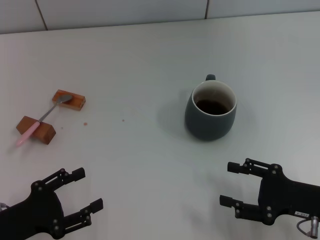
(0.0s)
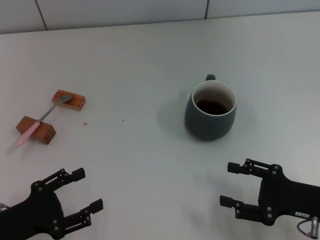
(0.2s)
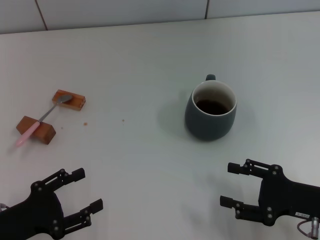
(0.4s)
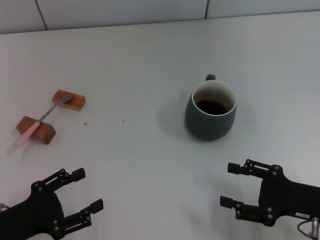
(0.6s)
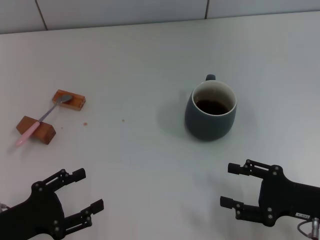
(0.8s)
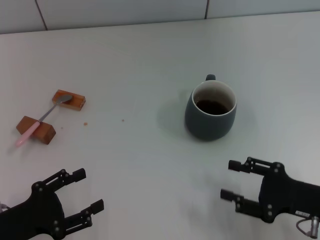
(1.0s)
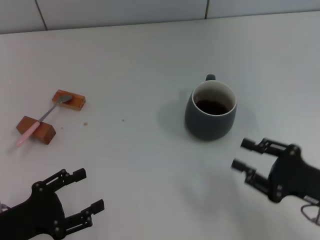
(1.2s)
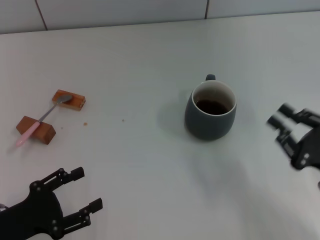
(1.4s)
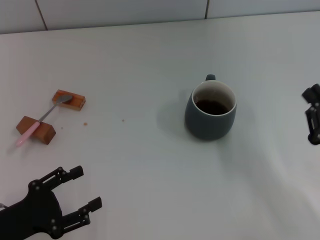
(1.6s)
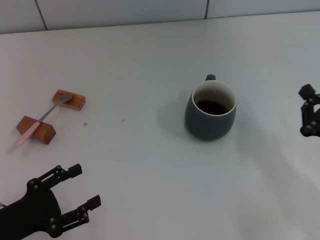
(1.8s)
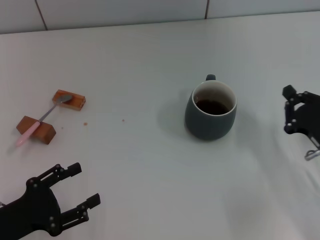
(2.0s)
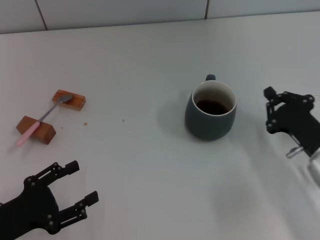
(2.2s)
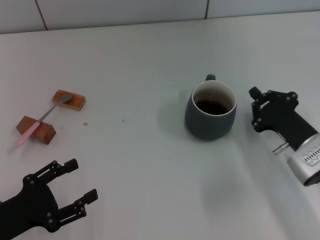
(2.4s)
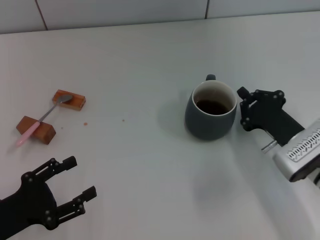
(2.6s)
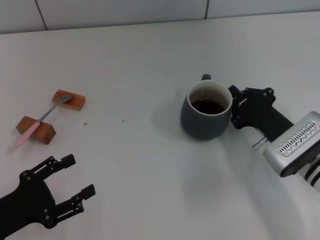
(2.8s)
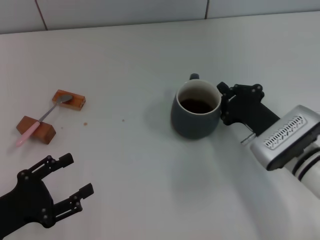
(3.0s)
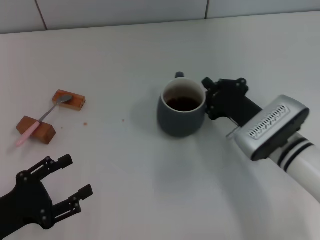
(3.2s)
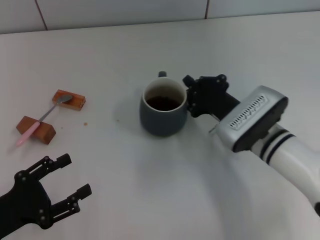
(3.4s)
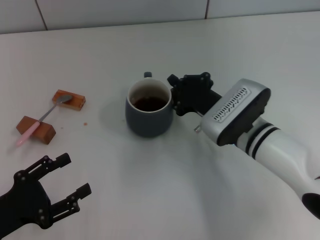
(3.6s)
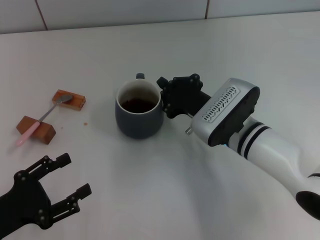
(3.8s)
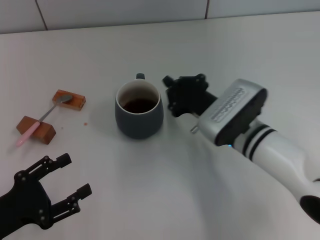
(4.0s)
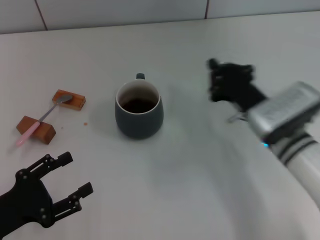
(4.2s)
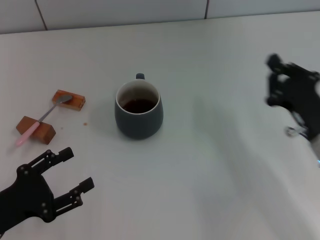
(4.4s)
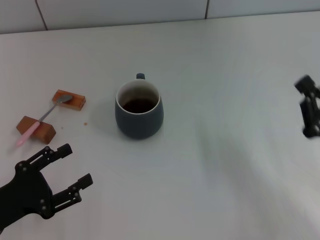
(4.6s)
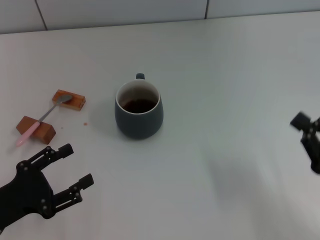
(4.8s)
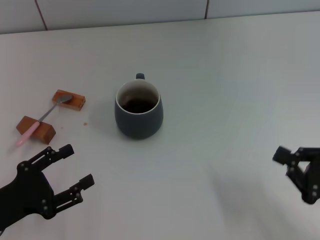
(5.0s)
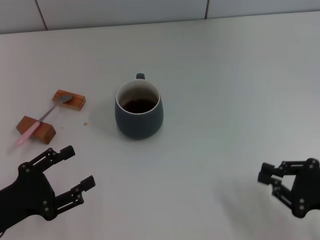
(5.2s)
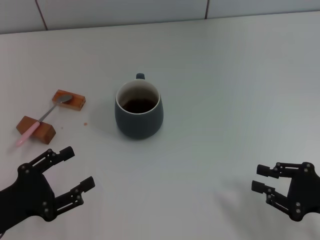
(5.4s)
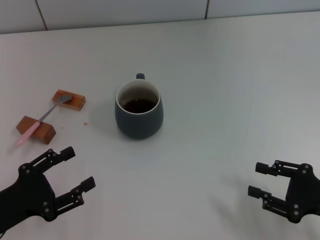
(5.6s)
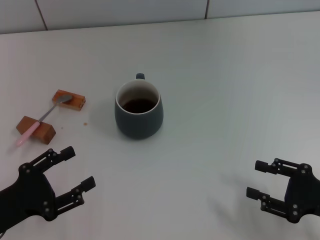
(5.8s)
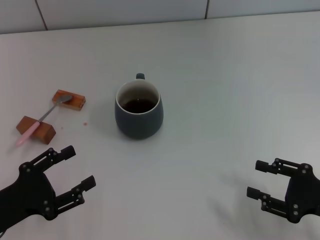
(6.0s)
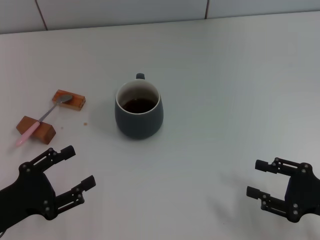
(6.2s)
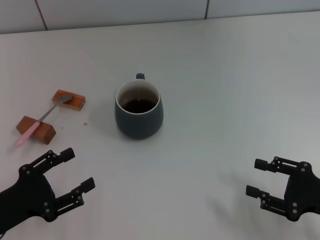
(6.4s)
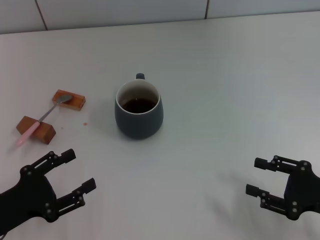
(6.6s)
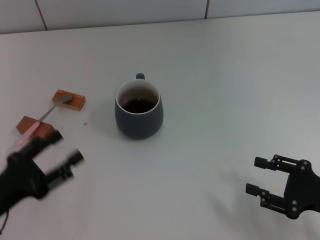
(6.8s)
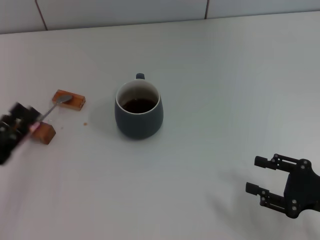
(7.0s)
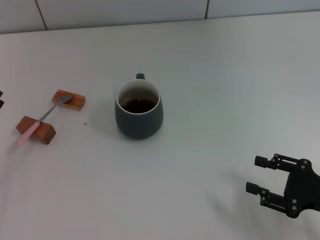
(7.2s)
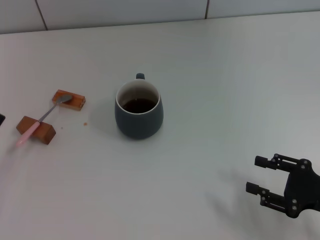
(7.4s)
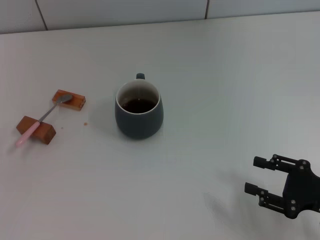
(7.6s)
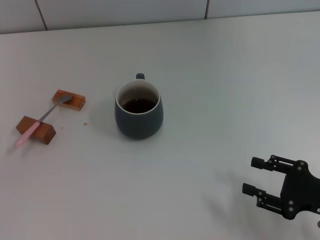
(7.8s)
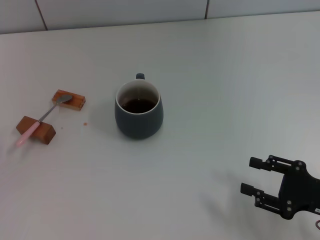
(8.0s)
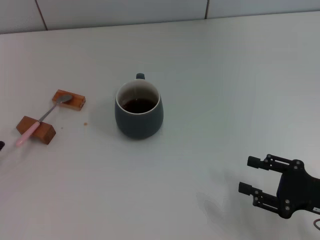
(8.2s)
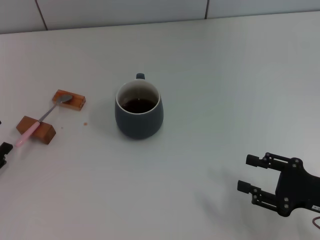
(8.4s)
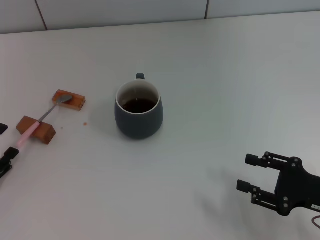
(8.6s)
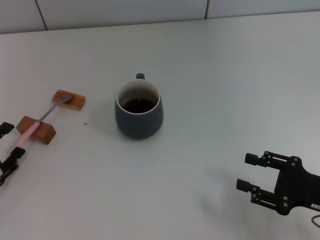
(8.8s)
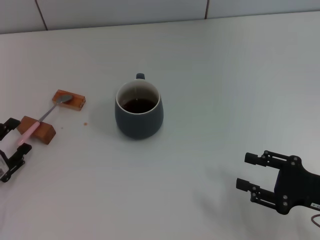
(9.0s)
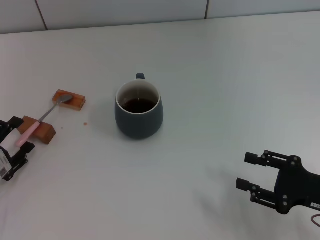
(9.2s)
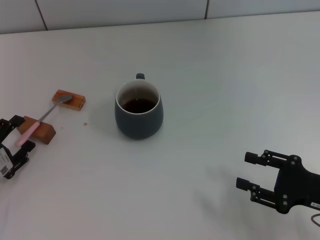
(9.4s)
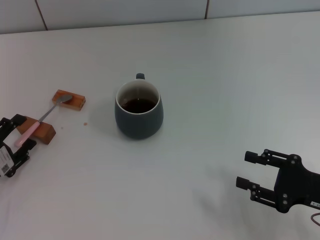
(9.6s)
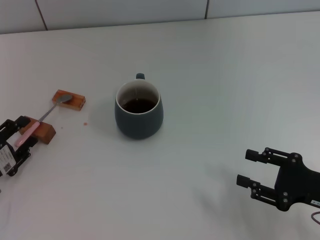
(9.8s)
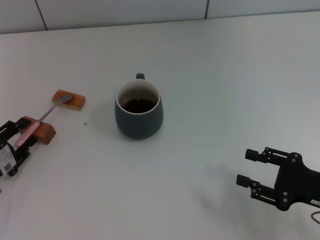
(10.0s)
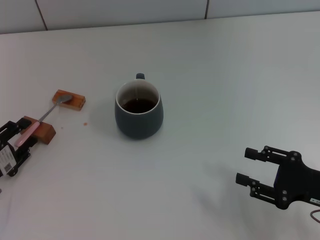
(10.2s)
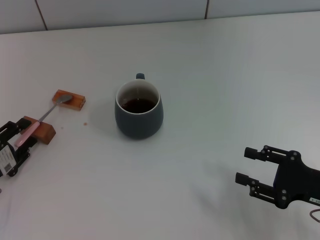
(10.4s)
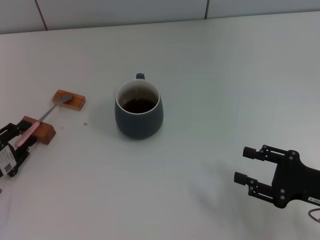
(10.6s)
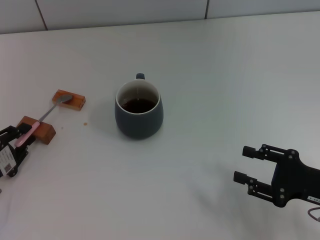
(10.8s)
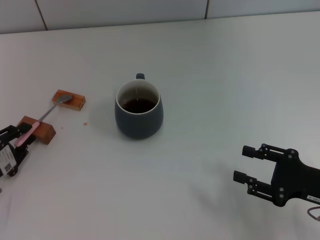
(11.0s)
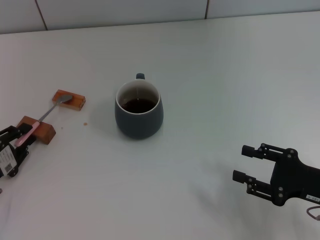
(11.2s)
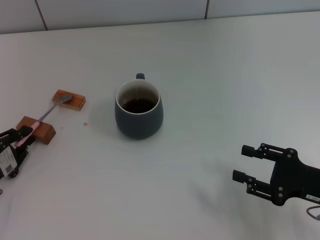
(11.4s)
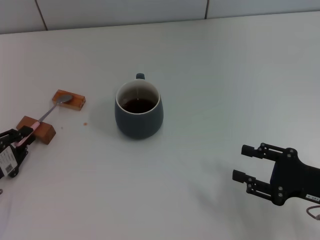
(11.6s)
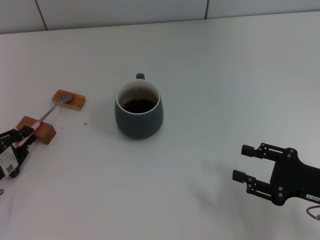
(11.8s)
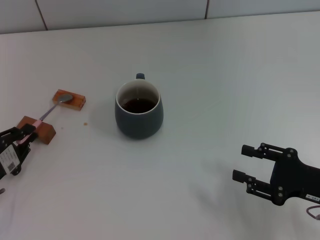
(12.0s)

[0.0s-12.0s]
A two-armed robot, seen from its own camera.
Task of the whole recording: Move the grey cup to the center, lift the pink spoon, stir it three times in the cup, and put the spoon into the cup.
Step, 0.0s to 4.0s: Move the cup with coffee to the center of view with the right gripper.
0.0s to 1.6s: The right gripper closes.
1.6s to 3.0s: The right gripper shifts about 15 cm to the left and forward, and closes up.
3.0s to 4.4s: The right gripper travels to the left and back again, approximately 10 cm each way.
4.4s to 6.0s: The right gripper travels backward and to the right by some 10 cm, and opens its fingers.
6.0s to 7.6s: The left gripper travels to the left by about 5 cm.
7.6s to 9.0s: The grippers make only small movements.
9.0s to 10.4s: The left gripper closes up.
10.4s to 12.0s: The left gripper closes up.

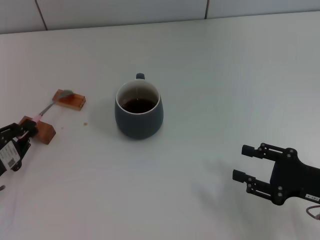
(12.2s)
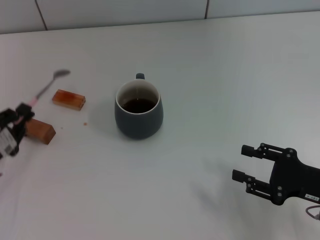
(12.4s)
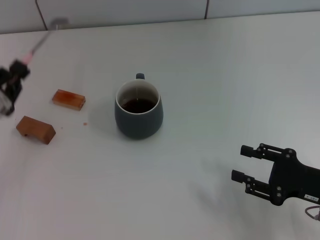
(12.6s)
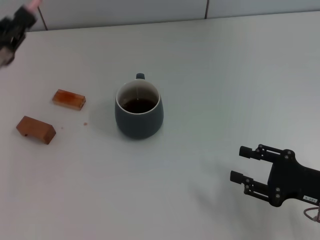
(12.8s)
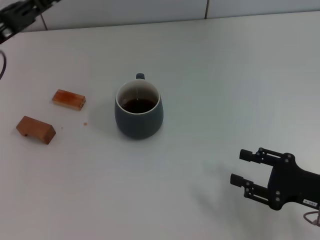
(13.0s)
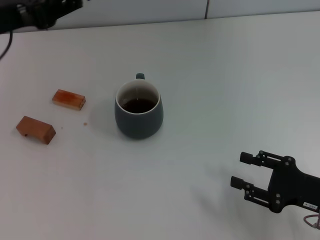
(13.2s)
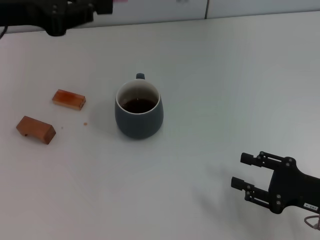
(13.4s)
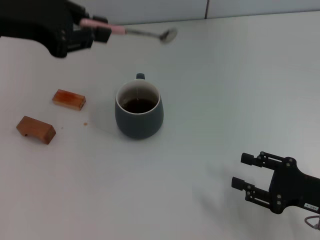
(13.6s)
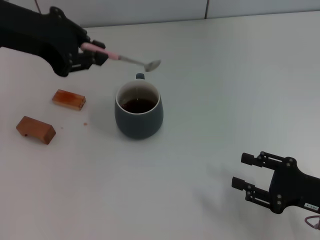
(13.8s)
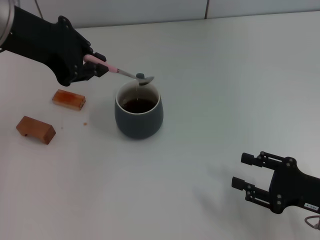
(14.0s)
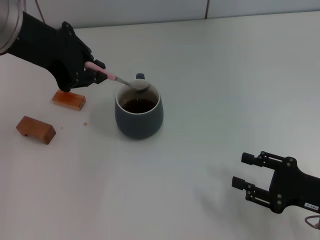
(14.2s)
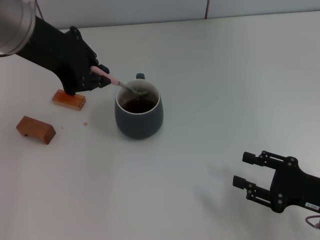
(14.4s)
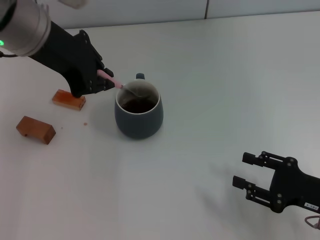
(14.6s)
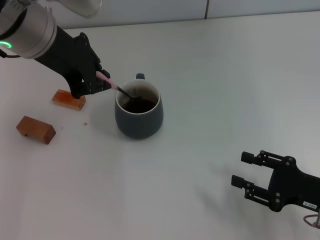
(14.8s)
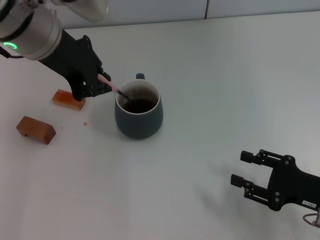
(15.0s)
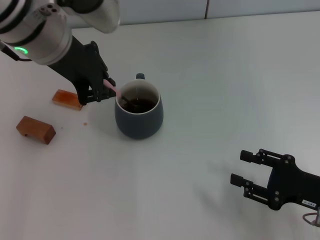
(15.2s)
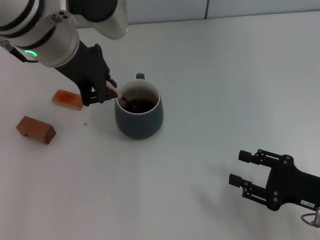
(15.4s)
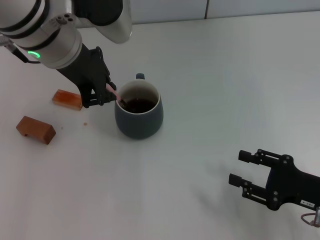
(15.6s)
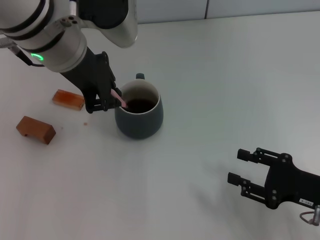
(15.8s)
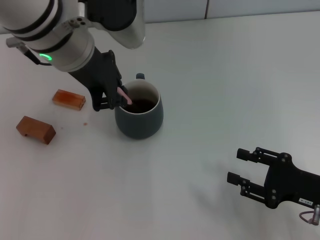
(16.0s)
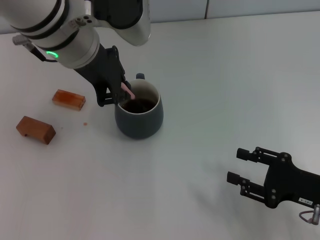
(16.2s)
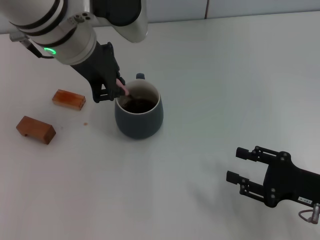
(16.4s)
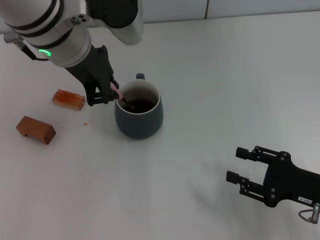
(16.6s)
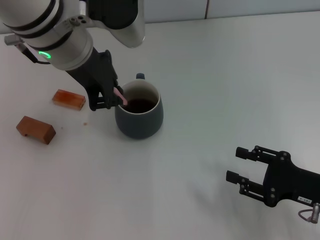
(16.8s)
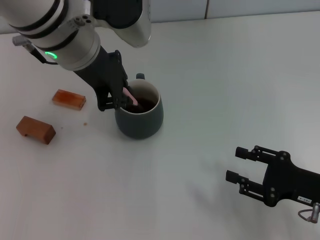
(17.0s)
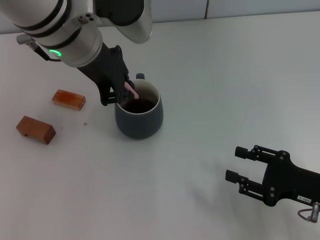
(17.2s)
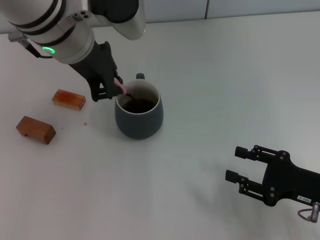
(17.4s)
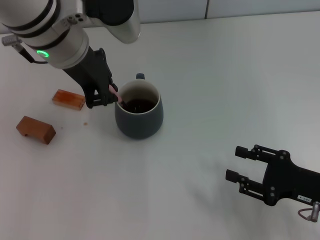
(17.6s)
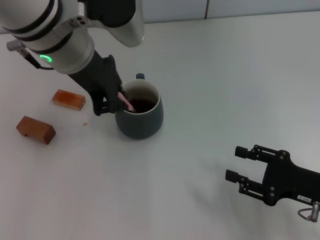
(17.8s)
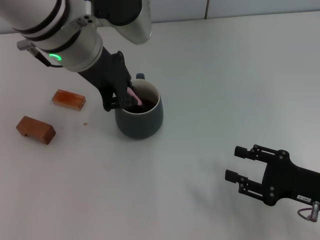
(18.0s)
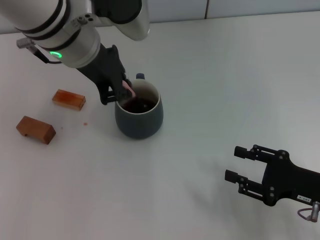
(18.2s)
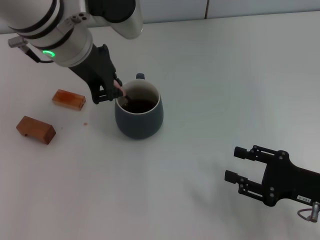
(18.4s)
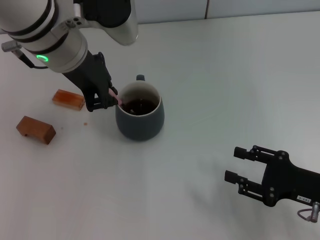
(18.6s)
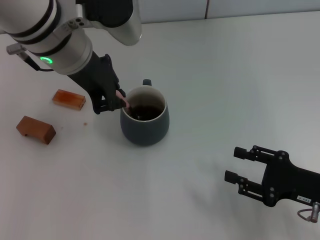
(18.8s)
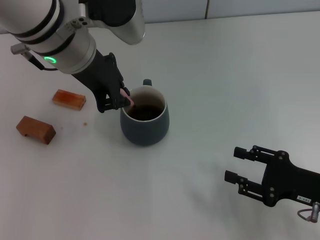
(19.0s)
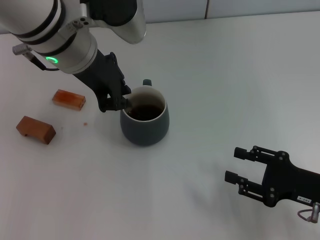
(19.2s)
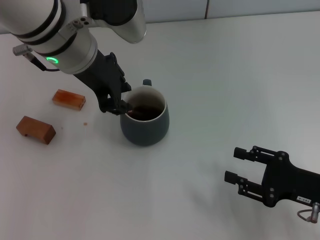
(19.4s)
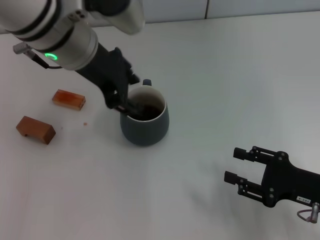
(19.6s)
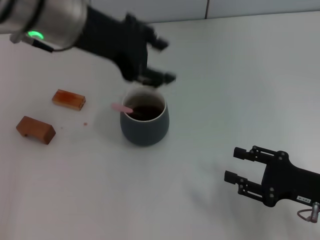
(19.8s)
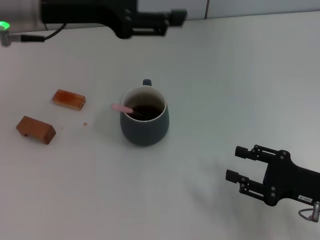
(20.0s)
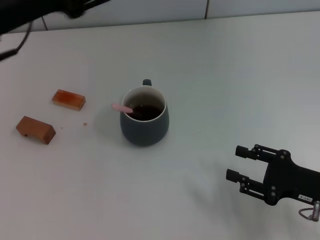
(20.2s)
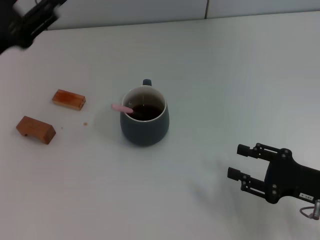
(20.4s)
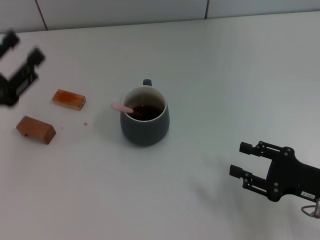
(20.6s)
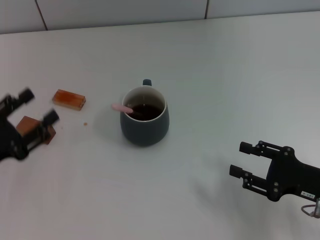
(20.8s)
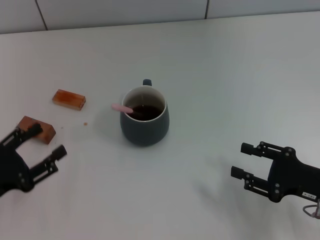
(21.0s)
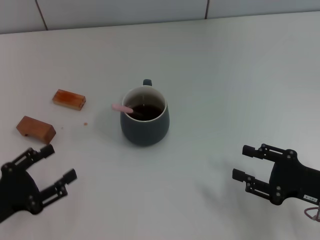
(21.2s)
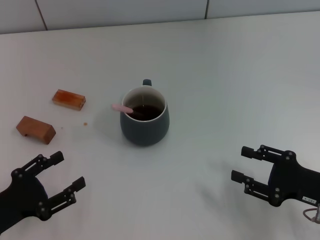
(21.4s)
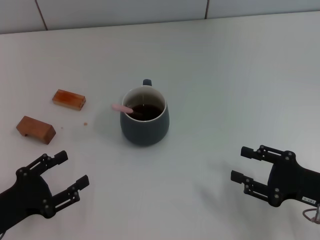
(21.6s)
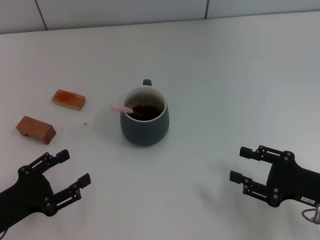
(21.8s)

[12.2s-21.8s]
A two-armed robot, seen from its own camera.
Task of the whole recording: Move the grey cup to the center, lift the pink spoon, stir it three times in the cup, and put the spoon into the cup.
Step, 12.4s to 19.6s: Stir the coffee in the cup with the left gripper.
12.2s to 13.8s: The left gripper goes about 30 cm upward and forward.
13.8s to 15.4s: The left gripper travels to the right by roughly 10 cm.
15.4s to 18.6s: The grippers make only small movements.
18.6s to 20.2s: The left gripper moves to the left, some 10 cm, and opens up.
20.2s to 21.8s: The left gripper moves downward and backward, roughly 25 cm.
